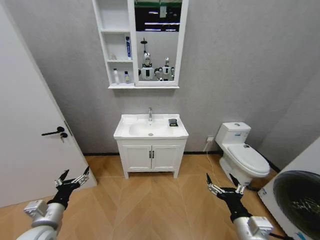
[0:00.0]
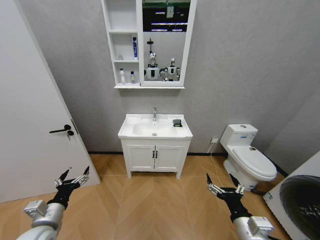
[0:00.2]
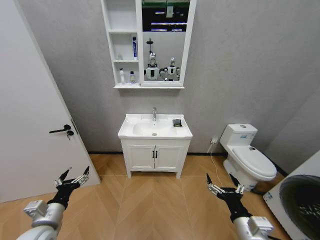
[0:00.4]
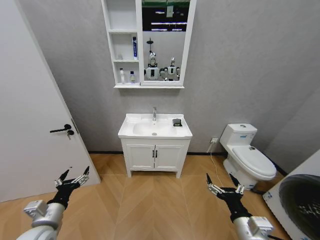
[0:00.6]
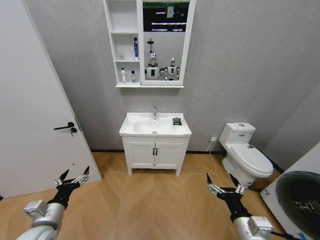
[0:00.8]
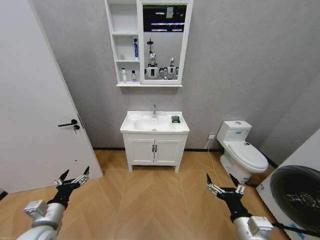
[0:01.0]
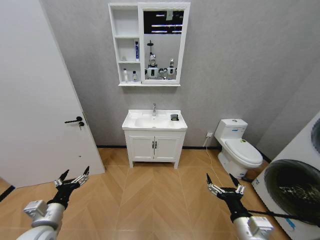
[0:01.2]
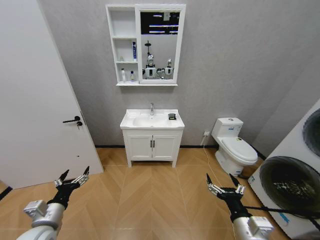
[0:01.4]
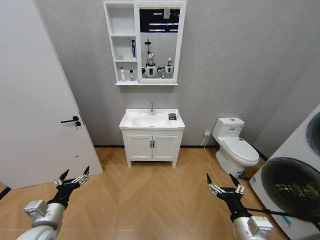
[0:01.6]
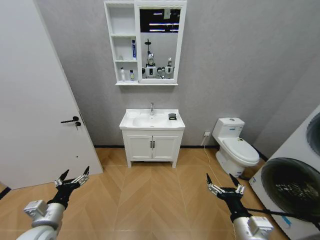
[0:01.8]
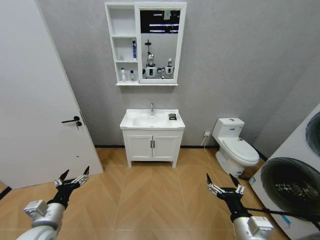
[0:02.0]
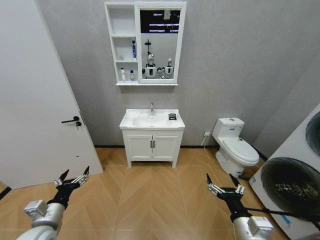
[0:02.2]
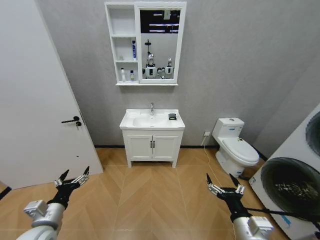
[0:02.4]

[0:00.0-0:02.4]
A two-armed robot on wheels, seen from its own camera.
Task of the whole recording: Move facial cleanser and shampoo from washbasin to cabinet, then wipe washbasin with towel.
0:01.2 to 0:02.4: Both grippers stay about where they are.

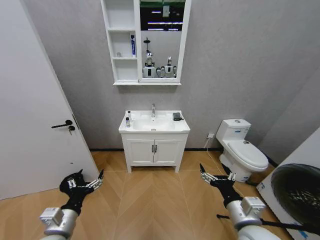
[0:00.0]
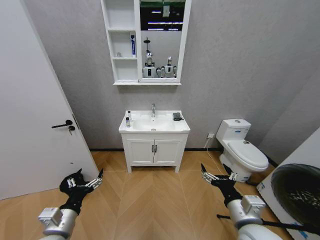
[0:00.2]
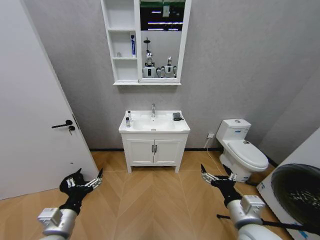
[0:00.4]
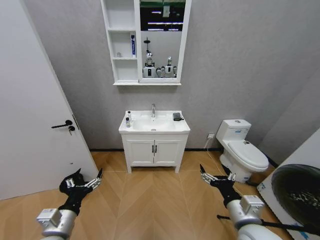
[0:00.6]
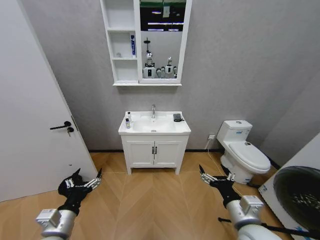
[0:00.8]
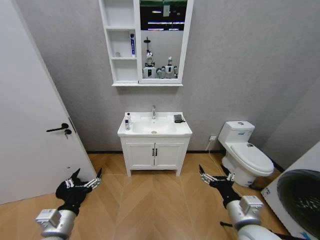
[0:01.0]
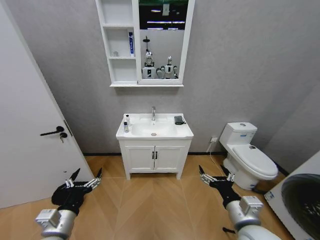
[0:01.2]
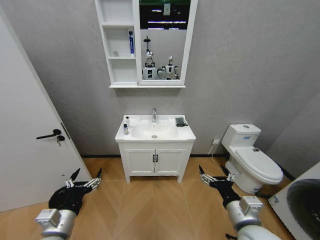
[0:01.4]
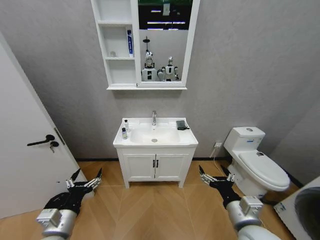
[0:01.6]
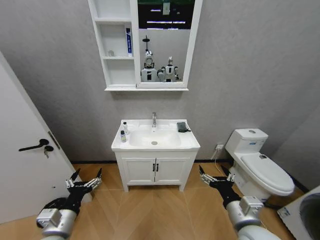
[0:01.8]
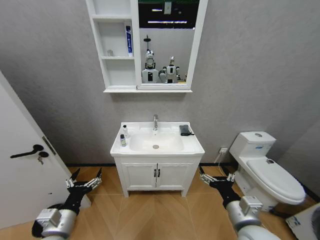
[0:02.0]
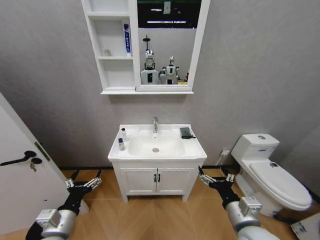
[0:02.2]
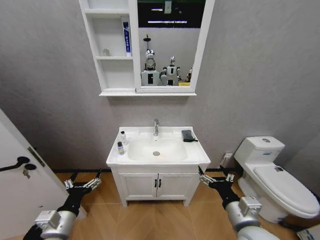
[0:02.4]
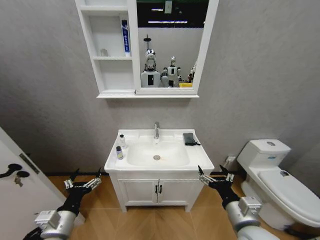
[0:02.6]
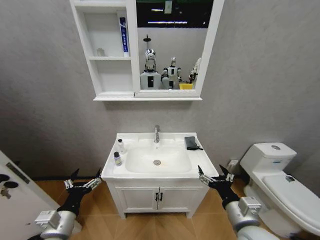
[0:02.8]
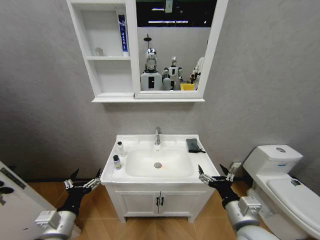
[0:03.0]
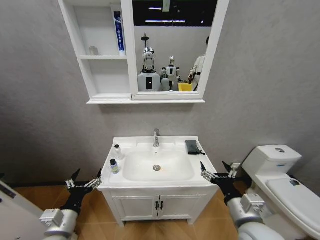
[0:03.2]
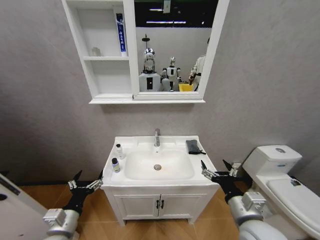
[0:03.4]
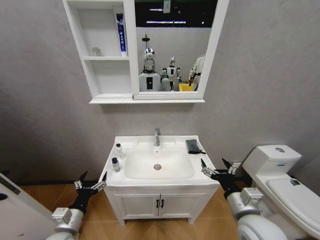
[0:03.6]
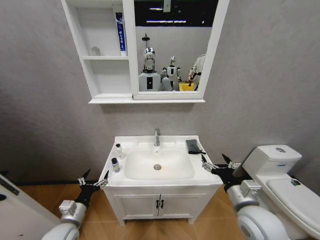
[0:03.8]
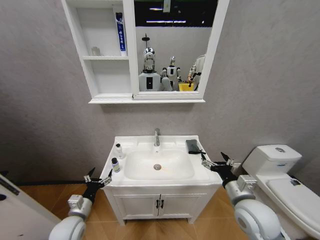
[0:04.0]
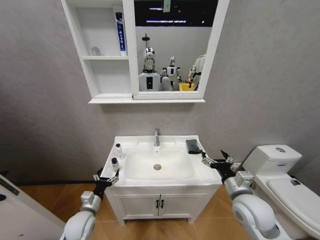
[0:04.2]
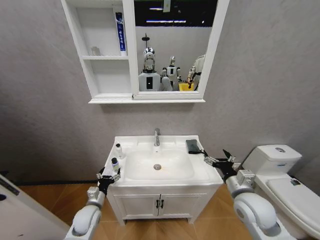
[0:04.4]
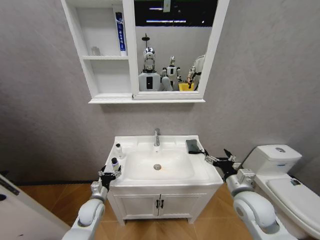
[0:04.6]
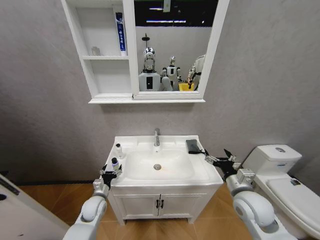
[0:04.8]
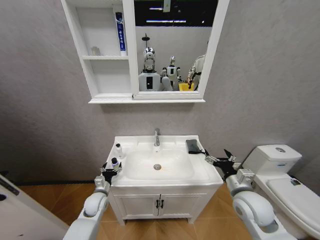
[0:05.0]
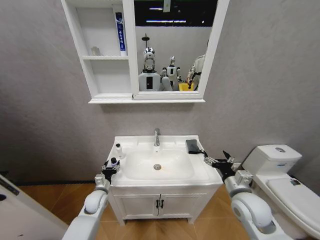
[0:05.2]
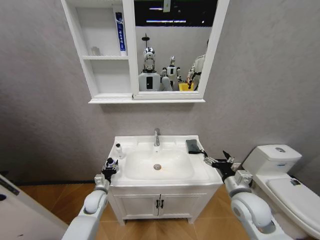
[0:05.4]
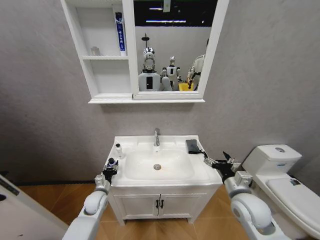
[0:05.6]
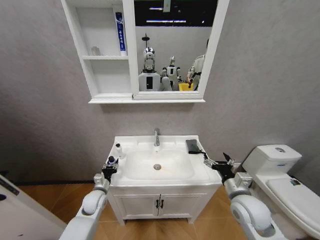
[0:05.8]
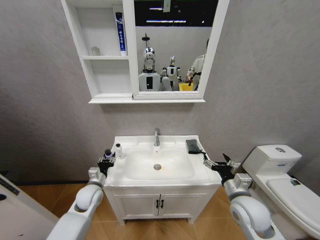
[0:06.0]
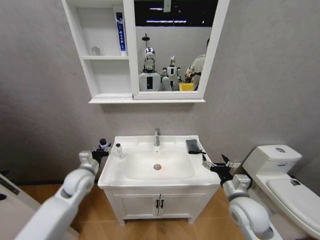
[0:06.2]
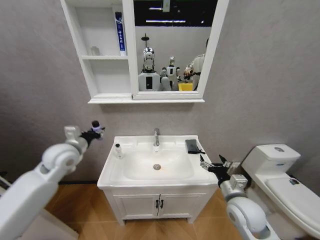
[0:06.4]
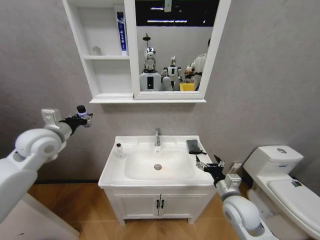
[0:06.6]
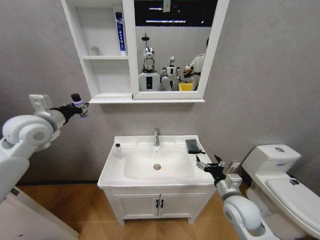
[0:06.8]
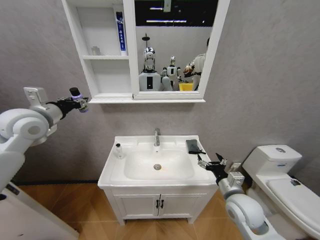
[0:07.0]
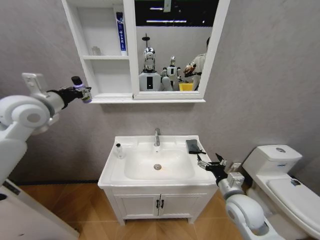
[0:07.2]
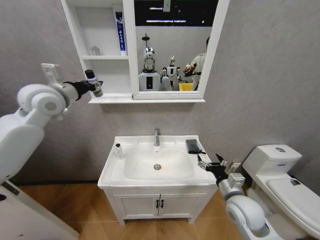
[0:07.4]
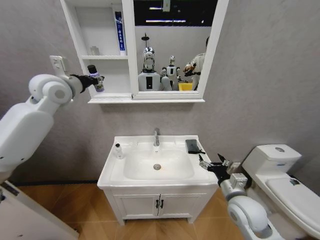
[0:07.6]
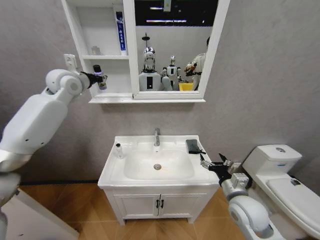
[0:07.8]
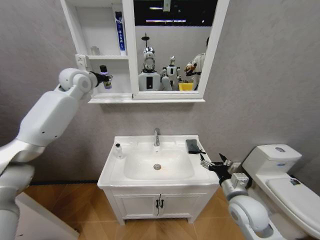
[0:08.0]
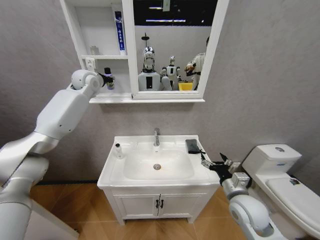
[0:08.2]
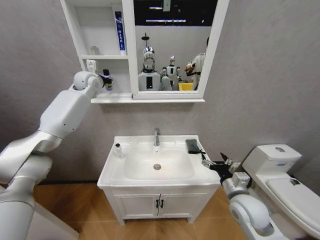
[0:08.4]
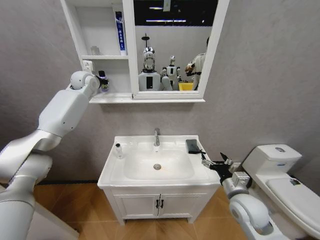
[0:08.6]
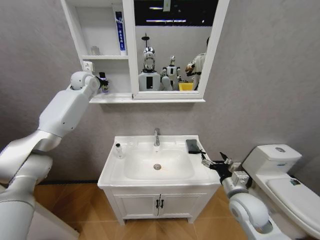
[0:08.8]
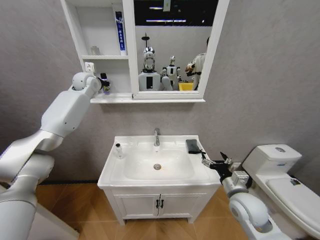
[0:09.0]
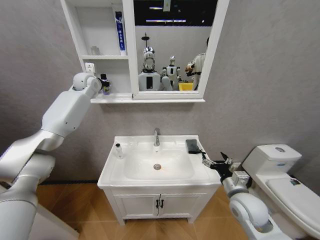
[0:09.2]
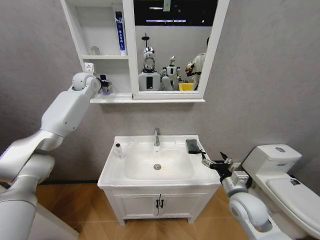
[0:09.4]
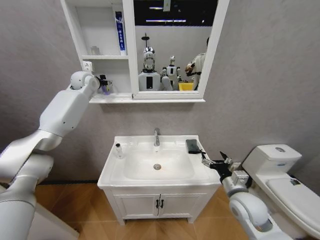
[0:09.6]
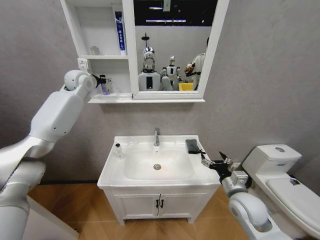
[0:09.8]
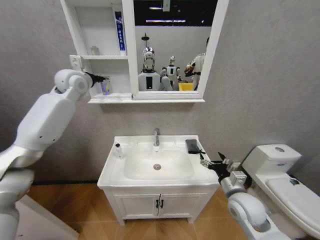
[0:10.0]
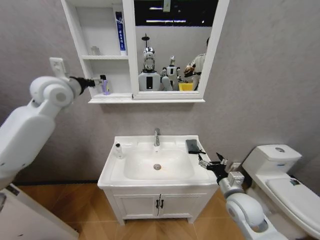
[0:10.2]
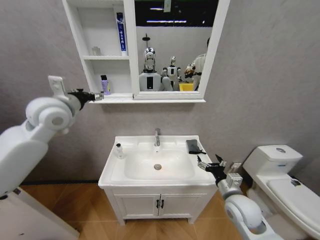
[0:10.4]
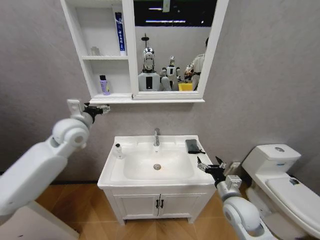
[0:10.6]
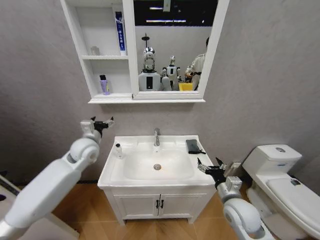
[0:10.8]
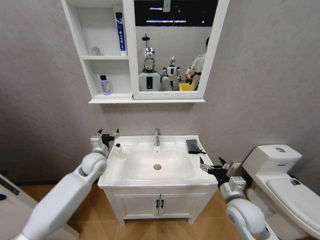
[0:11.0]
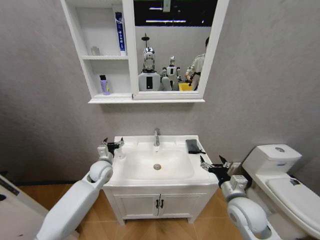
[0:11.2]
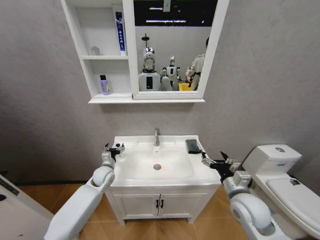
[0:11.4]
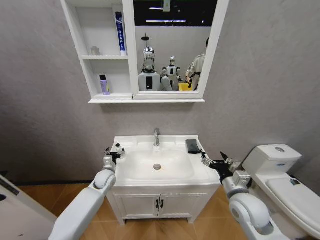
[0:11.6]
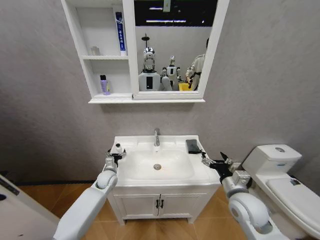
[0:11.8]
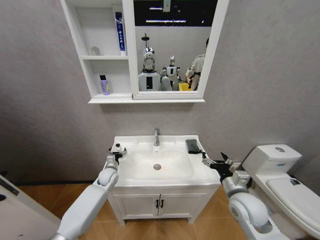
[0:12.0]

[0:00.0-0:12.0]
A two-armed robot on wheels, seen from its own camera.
Task of the whole recording: Move facial cleanser and shampoo from washbasin to cabinet, then wipe washbasin with towel.
0:03.0 to 0:04.4: The left gripper shifts some 15 cm downward and forward; the right gripper heads forward, covering about 10 cm.
0:04.4 to 0:06.0: The left gripper travels forward and upward by roughly 10 cm, and closes its fingers.
0:06.0 to 0:07.6: The left gripper travels upward by roughly 40 cm.
0:07.6 to 0:09.0: The left gripper travels forward by approximately 15 cm.
0:09.0 to 0:10.4: The left gripper shifts about 25 cm backward, and opens.
0:10.4 to 0:12.0: The left gripper heads downward, covering some 40 cm.

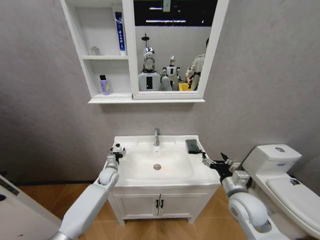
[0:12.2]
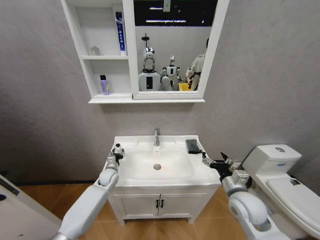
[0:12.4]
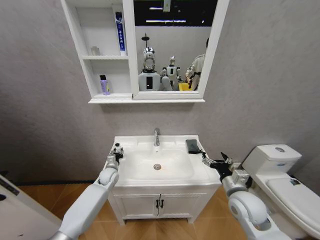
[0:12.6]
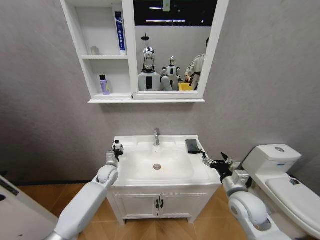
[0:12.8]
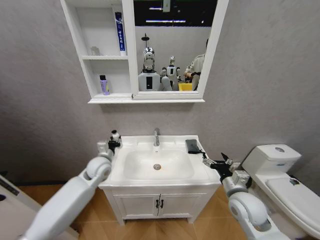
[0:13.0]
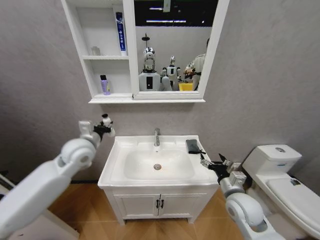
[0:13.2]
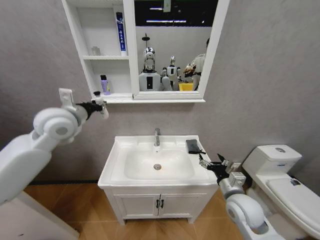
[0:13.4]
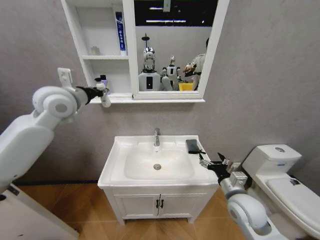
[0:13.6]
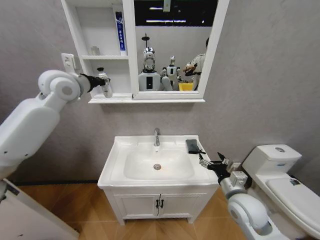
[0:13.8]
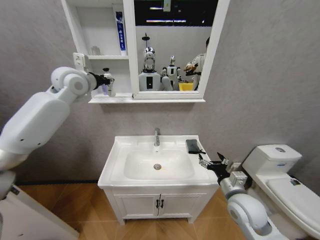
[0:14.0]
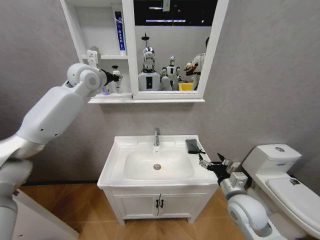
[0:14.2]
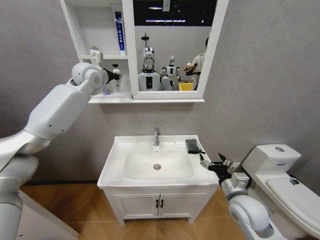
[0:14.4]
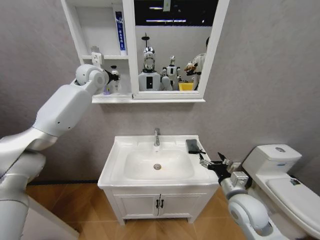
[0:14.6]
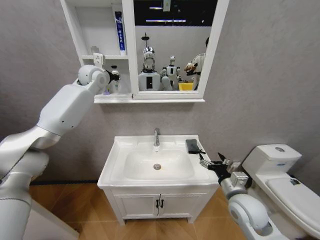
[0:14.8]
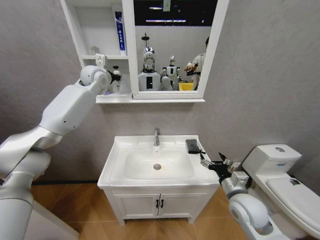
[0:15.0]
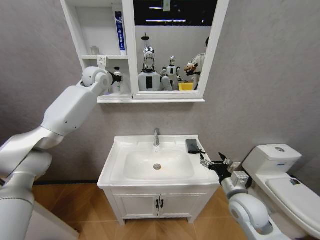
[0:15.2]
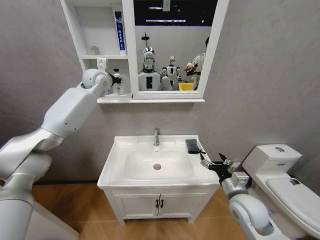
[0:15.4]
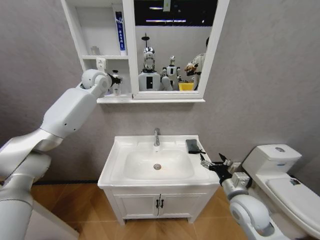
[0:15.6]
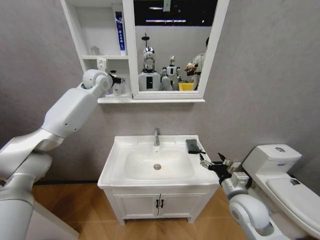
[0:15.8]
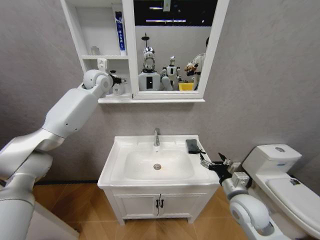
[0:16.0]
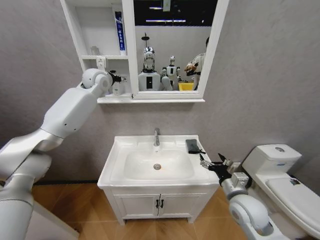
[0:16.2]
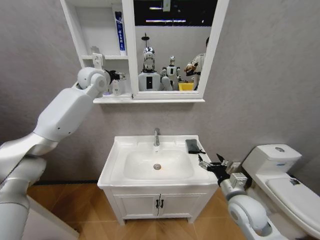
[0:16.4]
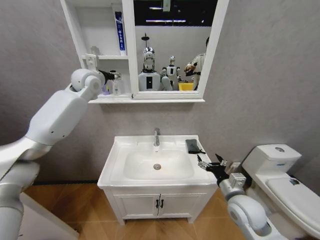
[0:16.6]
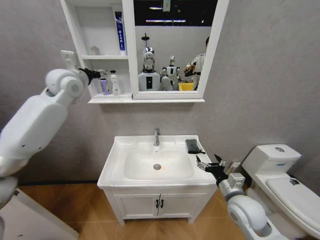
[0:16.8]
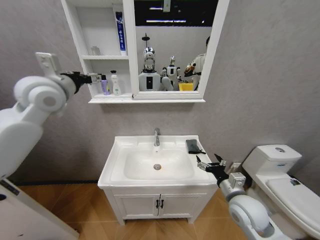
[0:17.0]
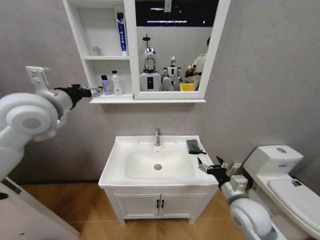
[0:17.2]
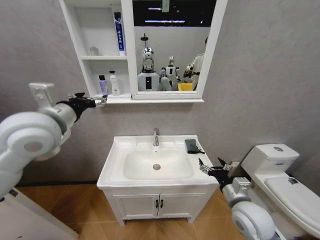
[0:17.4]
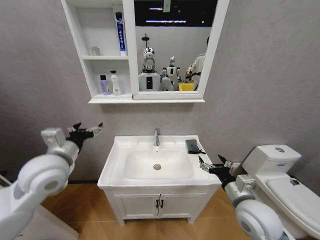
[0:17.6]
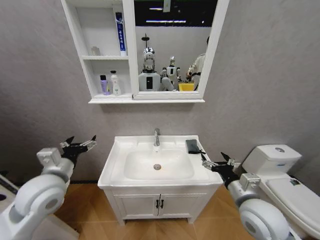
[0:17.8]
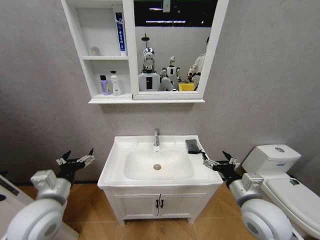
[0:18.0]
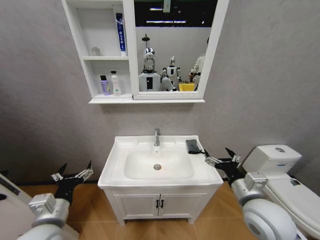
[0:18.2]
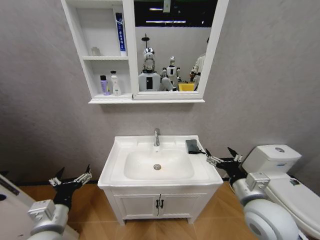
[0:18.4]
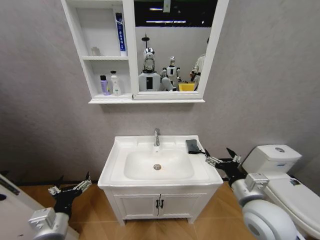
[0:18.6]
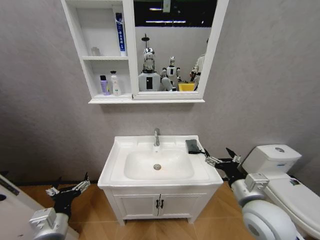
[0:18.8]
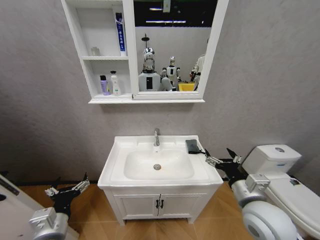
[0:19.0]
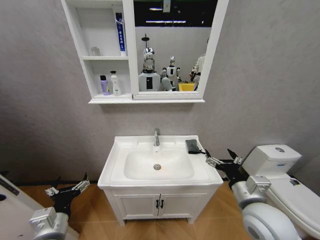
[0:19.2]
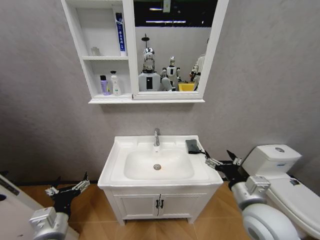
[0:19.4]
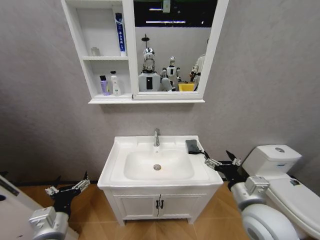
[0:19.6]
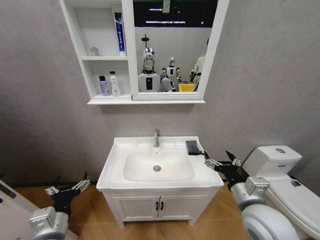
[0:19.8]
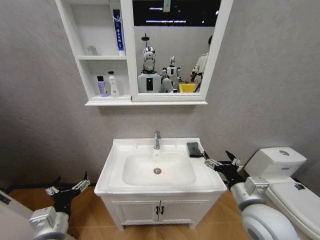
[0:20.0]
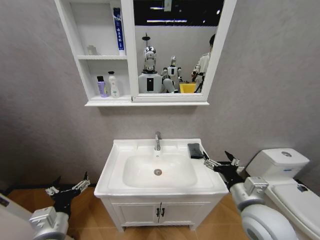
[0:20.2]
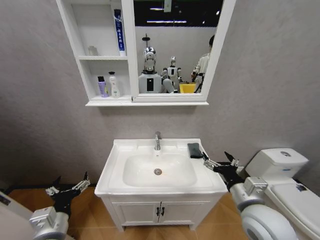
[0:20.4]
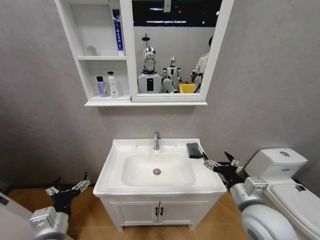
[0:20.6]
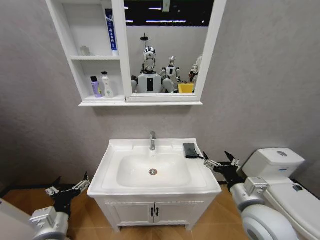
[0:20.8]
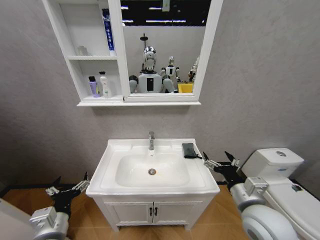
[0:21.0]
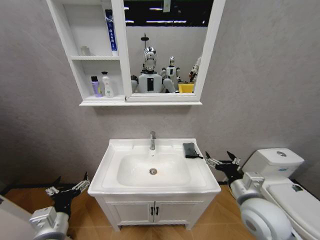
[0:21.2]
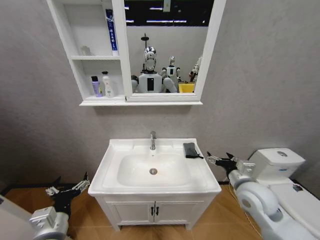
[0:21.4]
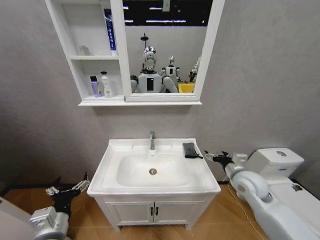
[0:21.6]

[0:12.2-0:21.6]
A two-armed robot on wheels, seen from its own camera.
Task of the whole recording: Move facial cleanser and shampoo from washbasin to cabinet, then wipe washbasin with towel.
0:12.2 to 0:13.8: The left gripper heads upward, covering roughly 50 cm, and closes.
0:13.8 to 0:15.4: The left gripper heads forward, covering about 15 cm.
0:15.4 to 0:17.0: The left gripper goes roughly 15 cm backward, and opens up.
0:17.0 to 0:18.4: The right gripper moves upward, roughly 5 cm; the left gripper shifts roughly 40 cm downward and backward.
0:18.4 to 0:20.0: The grippers make only small movements.
0:20.0 to 0:21.6: The right gripper shifts about 15 cm forward and to the right.
